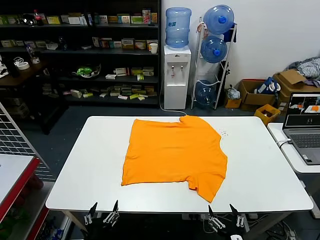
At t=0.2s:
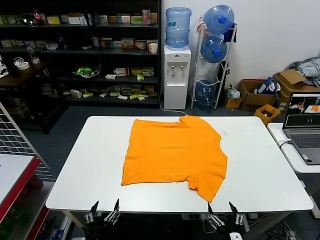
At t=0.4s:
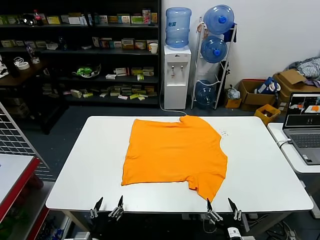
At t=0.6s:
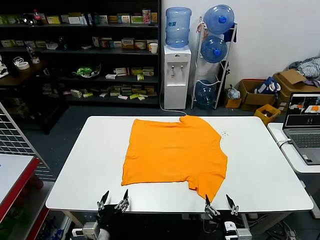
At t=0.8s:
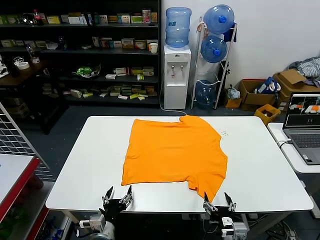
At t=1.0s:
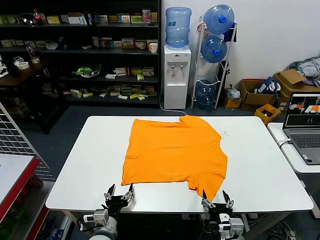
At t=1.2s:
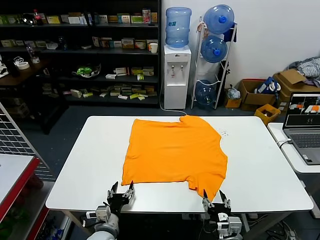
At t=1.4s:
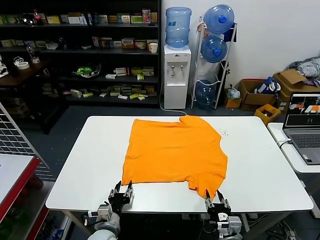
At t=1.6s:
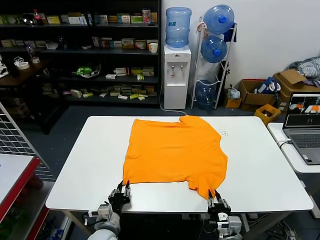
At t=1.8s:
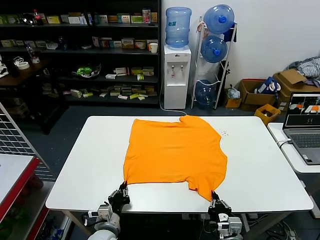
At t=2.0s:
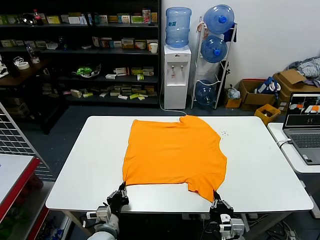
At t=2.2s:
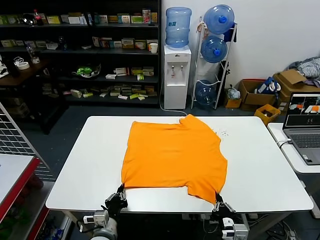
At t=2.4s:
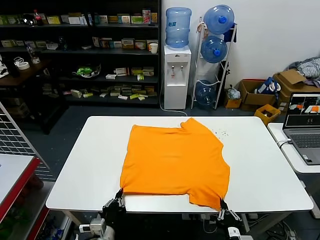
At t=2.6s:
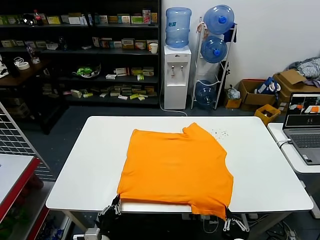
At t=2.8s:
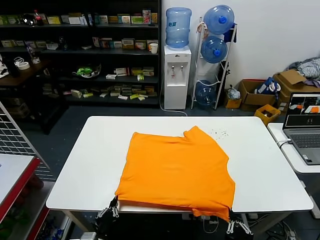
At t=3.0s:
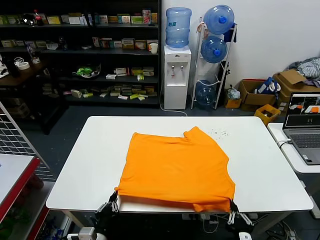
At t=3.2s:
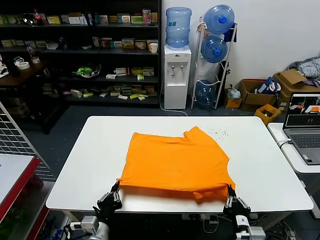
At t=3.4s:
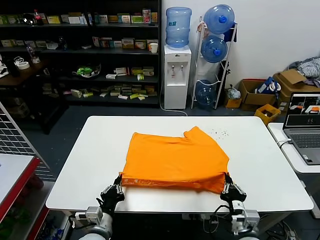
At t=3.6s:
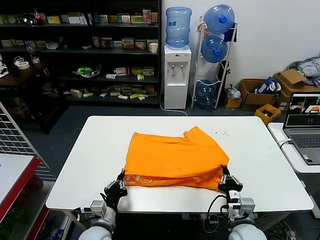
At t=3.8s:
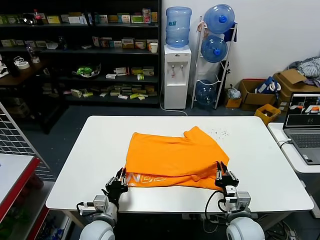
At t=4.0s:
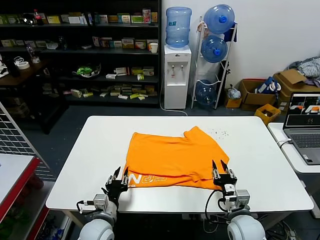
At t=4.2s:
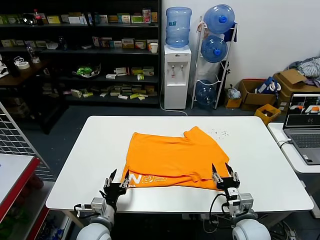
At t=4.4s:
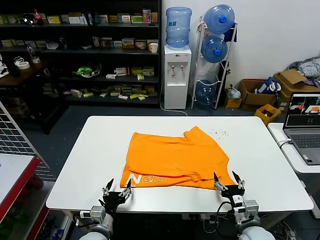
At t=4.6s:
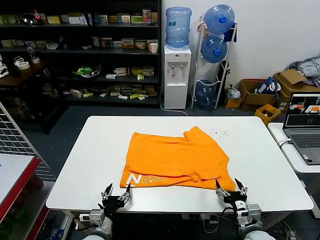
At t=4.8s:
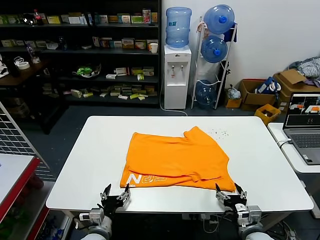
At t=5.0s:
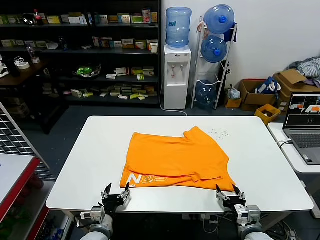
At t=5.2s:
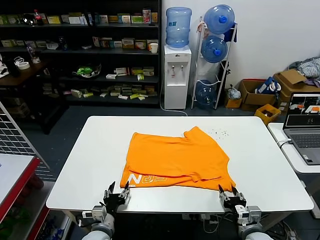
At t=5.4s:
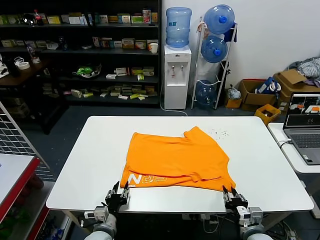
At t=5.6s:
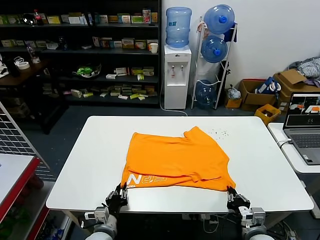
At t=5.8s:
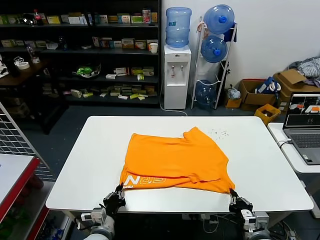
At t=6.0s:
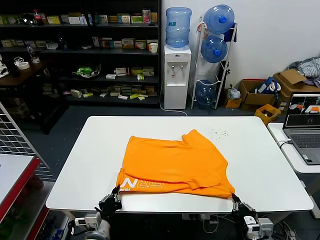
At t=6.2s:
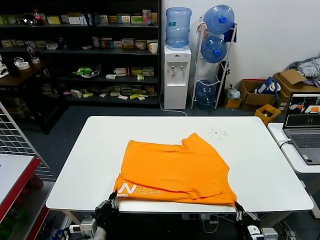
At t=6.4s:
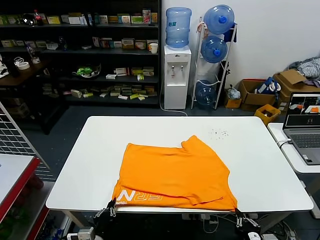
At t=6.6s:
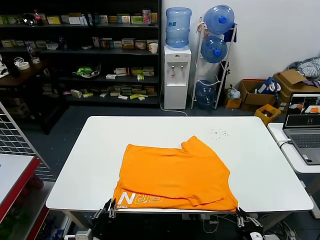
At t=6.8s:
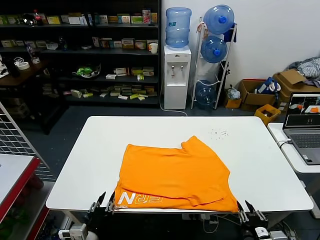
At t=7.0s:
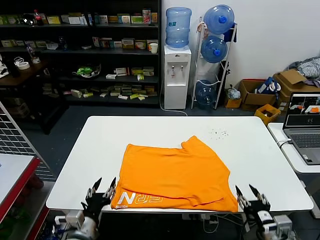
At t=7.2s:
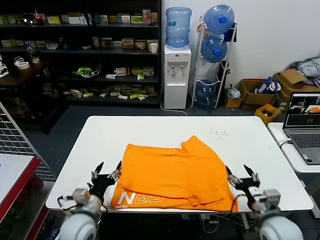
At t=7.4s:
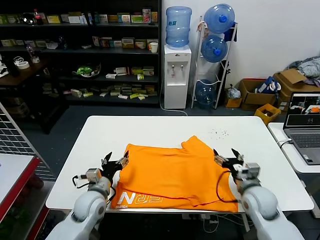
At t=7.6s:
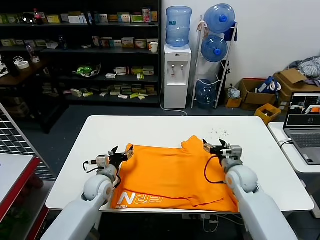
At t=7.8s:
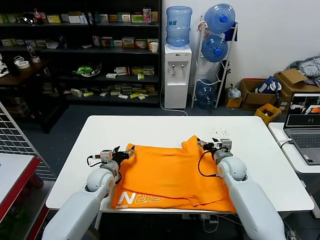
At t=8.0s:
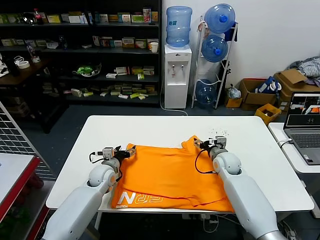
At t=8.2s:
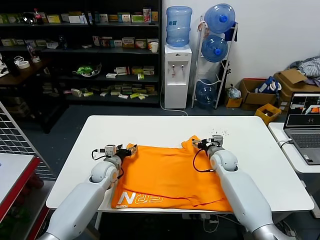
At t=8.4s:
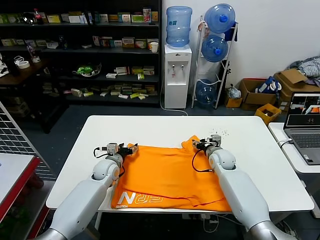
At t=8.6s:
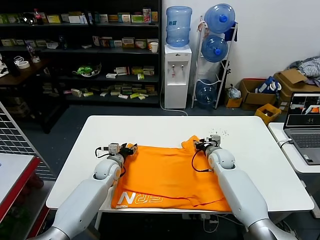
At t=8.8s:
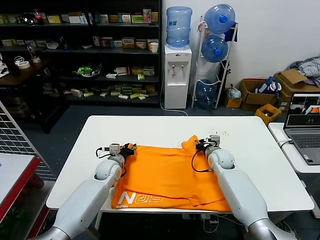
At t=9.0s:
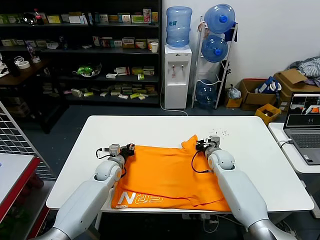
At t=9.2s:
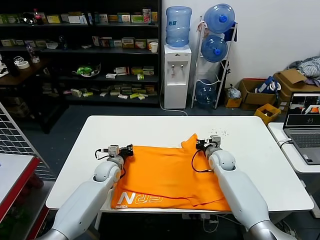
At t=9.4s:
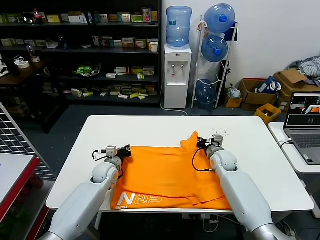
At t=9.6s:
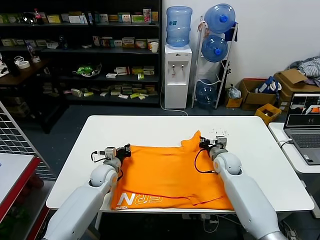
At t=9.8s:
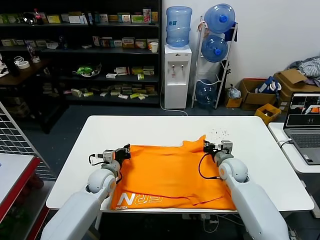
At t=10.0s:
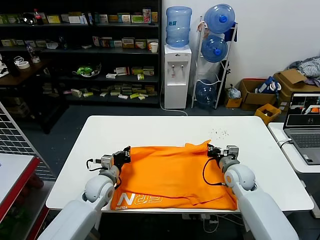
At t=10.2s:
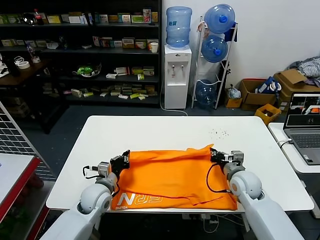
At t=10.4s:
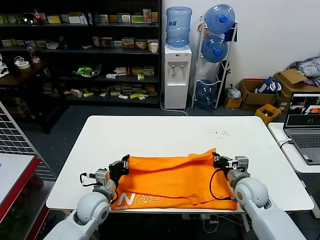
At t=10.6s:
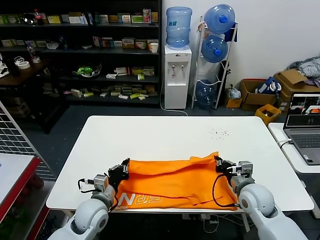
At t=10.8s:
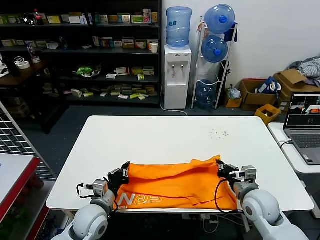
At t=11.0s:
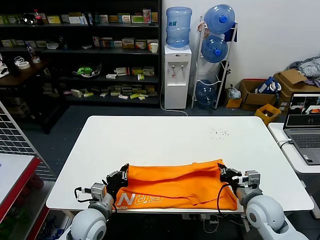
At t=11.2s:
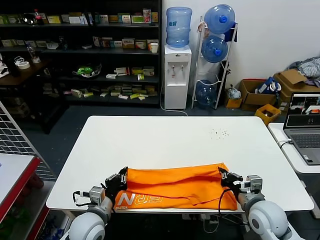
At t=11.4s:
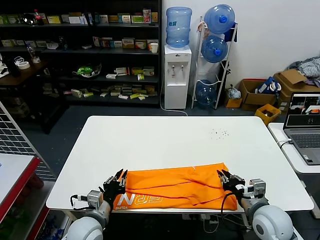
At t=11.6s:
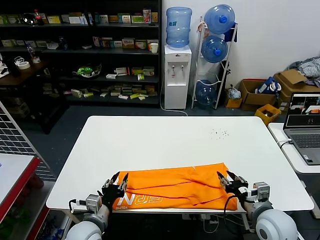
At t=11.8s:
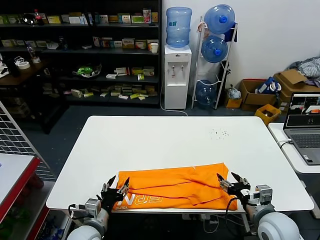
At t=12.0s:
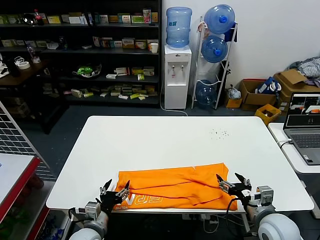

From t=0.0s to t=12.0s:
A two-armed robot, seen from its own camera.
Task of the whole recording: fold and organize the clothes.
Step, from t=0.0s to t=1.8s: use both grippers simultaneously to clamp the lower edge of the clothing fabric.
Step, from t=2.0s to t=4.0s: use both grippers to drag the lower edge of the fabric forward and fold it over the upper edge.
Step, from t=4.2s to t=6.6s: Drag the clothes downward with both gripper.
Step, from t=6.8s to t=9.2s: use both grippers simultaneously to clamp the upper edge of the clothing fabric.
Step, from t=9.4s to t=11.4s: use both grippers to drag the upper edge of the fabric backward and fold it over the lower edge.
From t=1.6s to t=3.0s: Both grippers travel together backward and upward, about 10 cm. The left gripper closes up.
From t=3.0s to t=4.4s: Both grippers travel together forward, roughly 10 cm. The left gripper opens, while the right gripper opens up.
From t=4.4s to t=6.0s: The right gripper goes approximately 5 cm backward, and closes up; the left gripper closes its fingers.
From t=6.0s to t=7.6s: Both grippers travel together forward, about 20 cm. The right gripper opens up. Meanwhile the left gripper opens.
From t=7.6s to t=9.0s: Both grippers move forward, about 10 cm. The right gripper closes its fingers. Meanwhile the left gripper closes up.
From t=9.0s to t=10.4s: Both grippers move backward, about 15 cm. The left gripper closes its fingers.
From t=10.4s to t=12.0s: Both grippers move backward, approximately 10 cm. The right gripper opens its fingers; the left gripper opens up.

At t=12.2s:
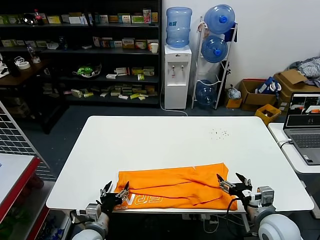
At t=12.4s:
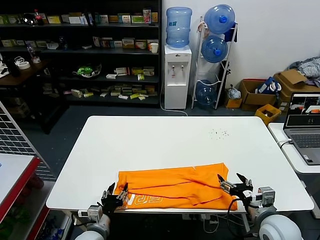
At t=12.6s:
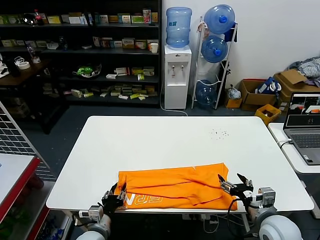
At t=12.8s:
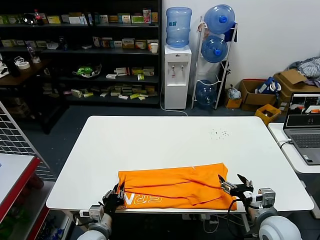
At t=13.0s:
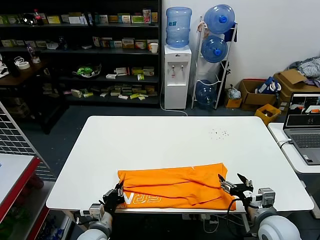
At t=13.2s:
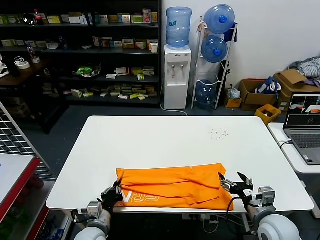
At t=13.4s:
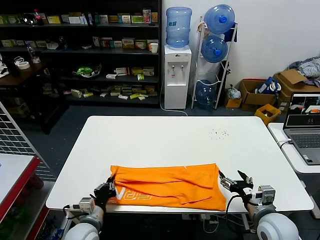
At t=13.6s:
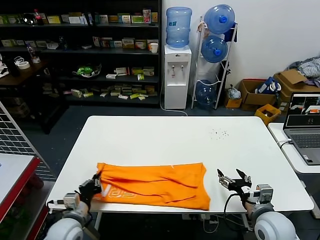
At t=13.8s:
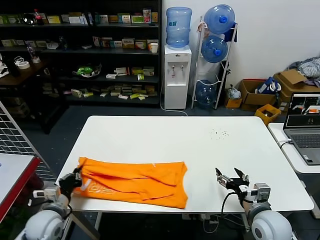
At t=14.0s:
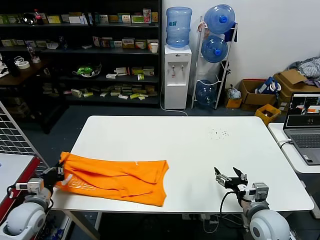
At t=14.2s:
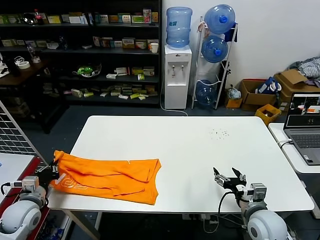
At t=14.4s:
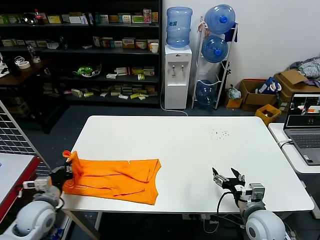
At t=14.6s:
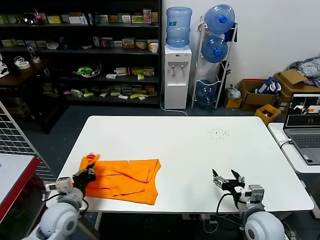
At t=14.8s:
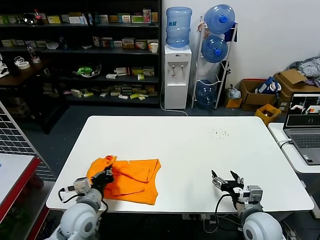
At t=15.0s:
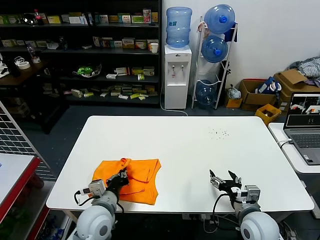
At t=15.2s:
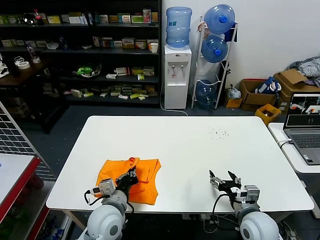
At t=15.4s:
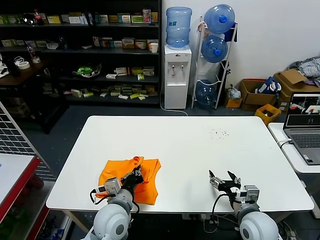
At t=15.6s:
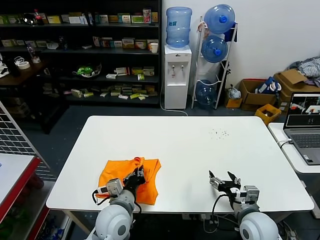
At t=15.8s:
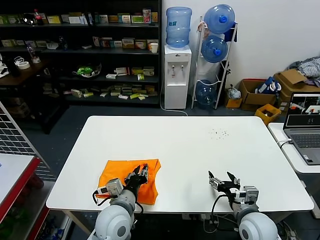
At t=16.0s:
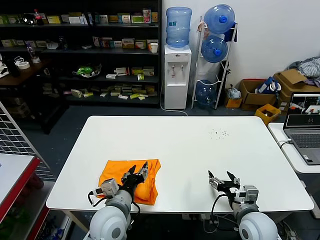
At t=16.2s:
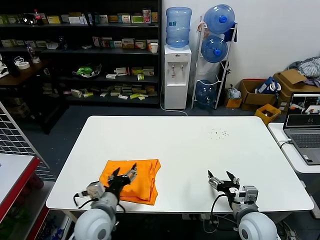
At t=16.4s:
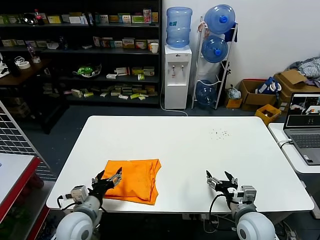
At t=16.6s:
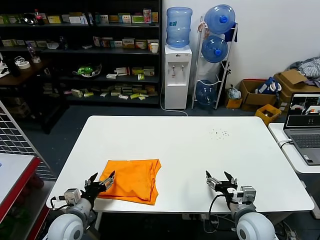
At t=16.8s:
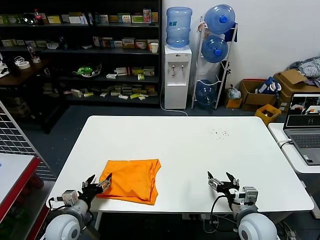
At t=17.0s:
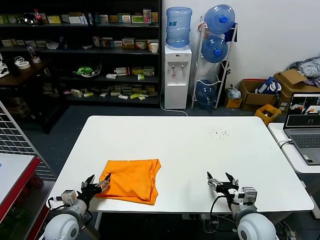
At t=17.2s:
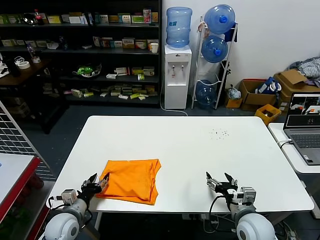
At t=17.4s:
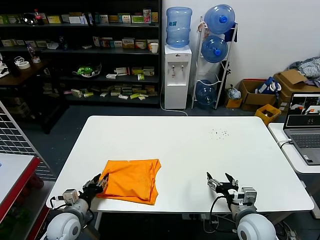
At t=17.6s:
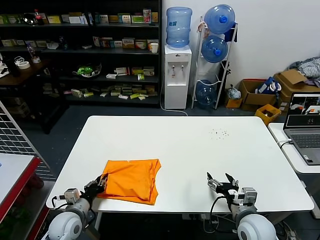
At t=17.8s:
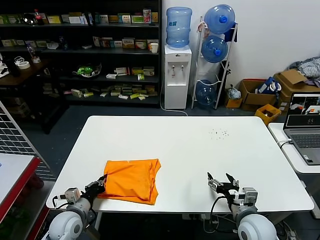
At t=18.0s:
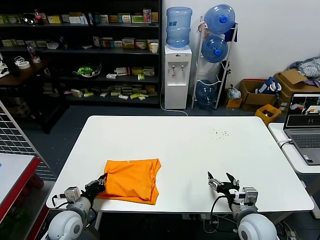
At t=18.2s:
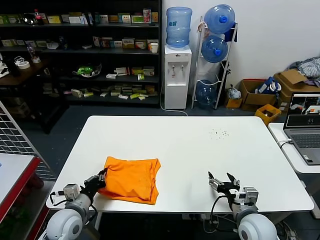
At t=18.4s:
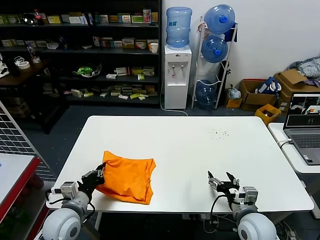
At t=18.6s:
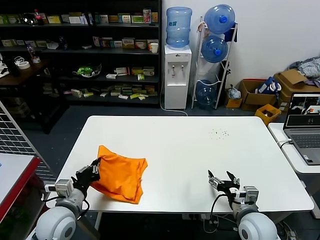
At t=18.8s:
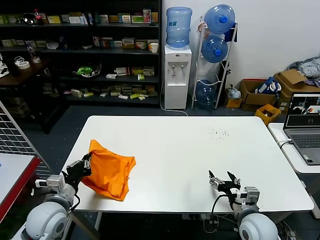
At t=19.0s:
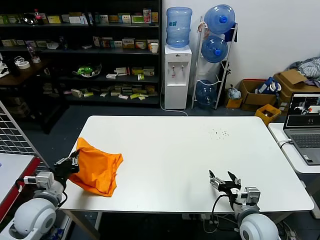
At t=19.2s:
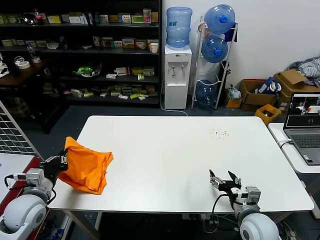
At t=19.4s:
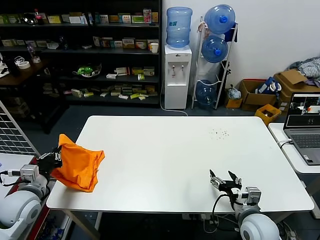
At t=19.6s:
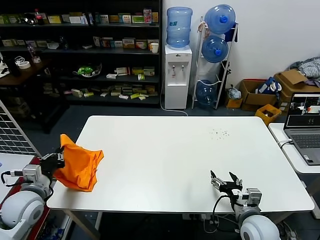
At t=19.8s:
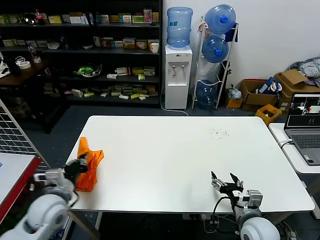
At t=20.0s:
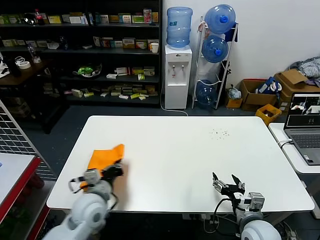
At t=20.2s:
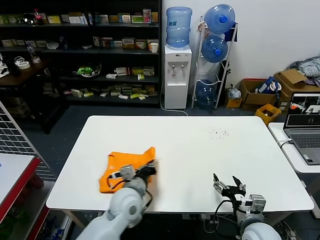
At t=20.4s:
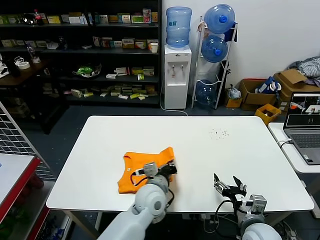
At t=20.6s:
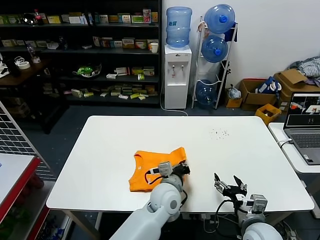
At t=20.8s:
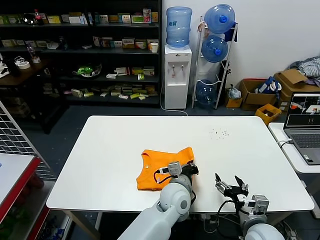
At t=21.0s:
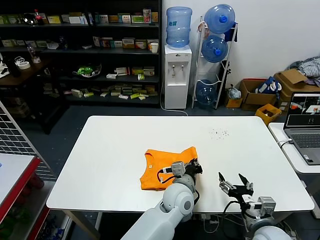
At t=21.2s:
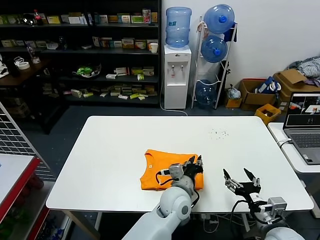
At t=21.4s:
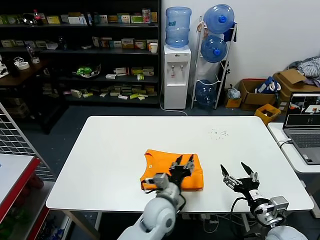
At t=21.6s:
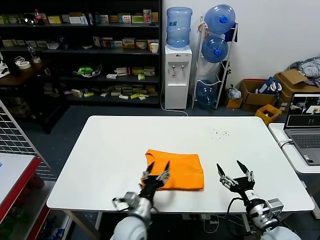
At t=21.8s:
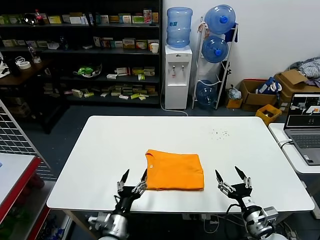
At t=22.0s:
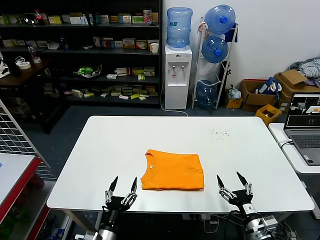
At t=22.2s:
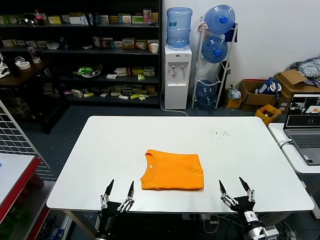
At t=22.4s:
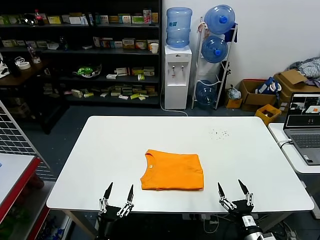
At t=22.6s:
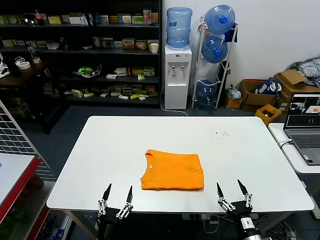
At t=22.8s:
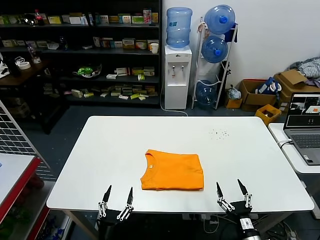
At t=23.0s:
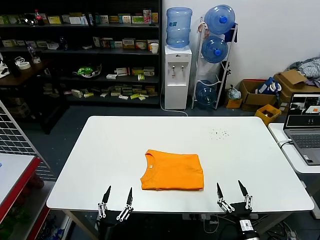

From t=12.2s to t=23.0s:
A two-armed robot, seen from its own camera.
Task of the whole recording: fold and organize the clothes.
Step, from t=12.2s to t=13.0s: use the left gripper to clamp the left edge of the fabric.
Step, from t=13.2s to t=16.0s: use the left gripper to drag the left edge of the fabric to the left and folds it over the right edge.
Step, from t=16.2s to t=21.4s: Flip the folded clothes over with left gripper.
From t=12.2s to t=13.8s: The left gripper goes roughly 10 cm to the left, and closes up.
From t=13.8s to t=15.2s: The left gripper moves to the right, some 15 cm.
From t=15.2s to t=16.8s: The left gripper shifts about 15 cm to the left and downward, and opens.
From t=16.8s to t=18.4s: The left gripper is displaced upward by some 5 cm, and closes its fingers.
From t=18.4s to t=20.0s: The left gripper goes to the left and returns, some 10 cm each way.
From t=20.0s to t=21.4s: The left gripper moves to the right, about 25 cm, and opens; the right gripper changes place by about 5 cm.
From t=21.4s to t=23.0s: The right gripper goes roughly 15 cm downward. The left gripper shifts about 30 cm to the left, backward and downward, and opens.
